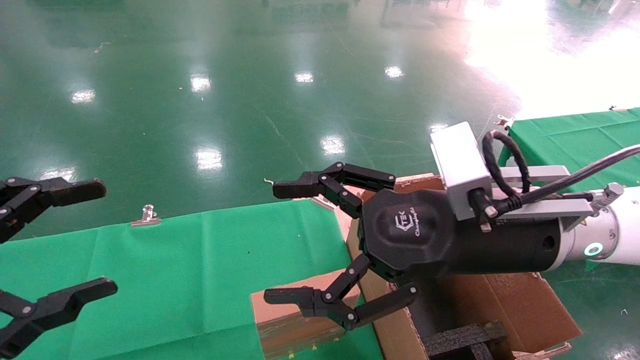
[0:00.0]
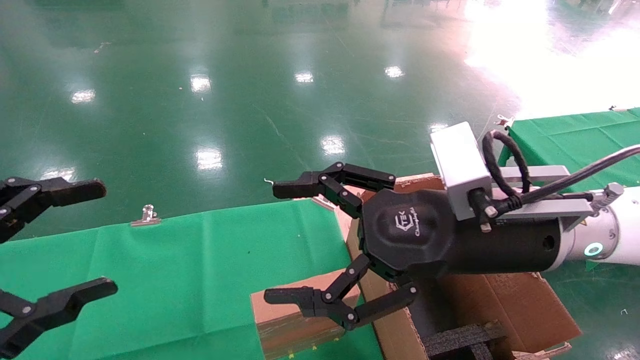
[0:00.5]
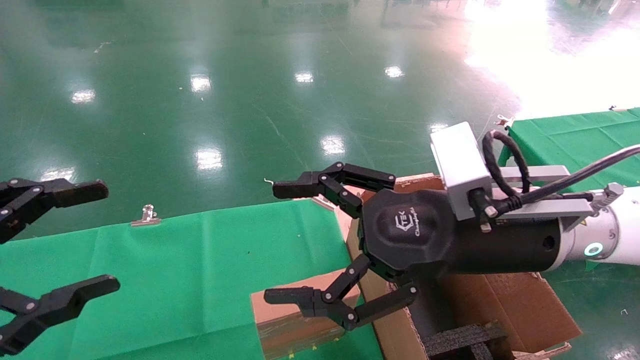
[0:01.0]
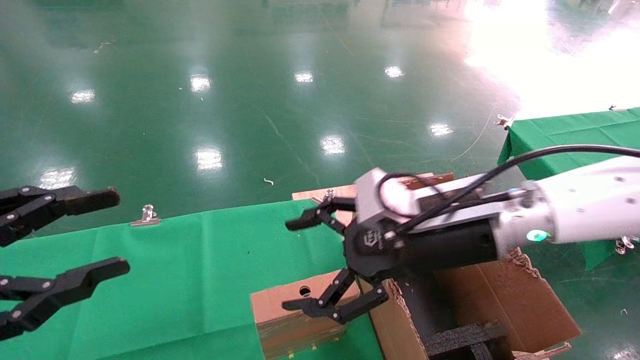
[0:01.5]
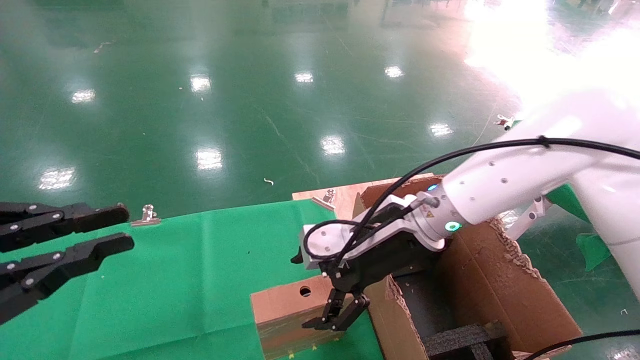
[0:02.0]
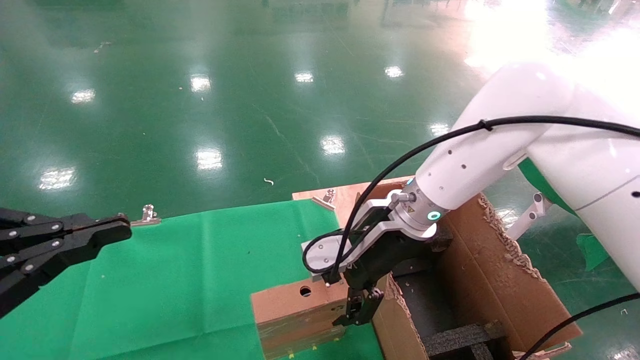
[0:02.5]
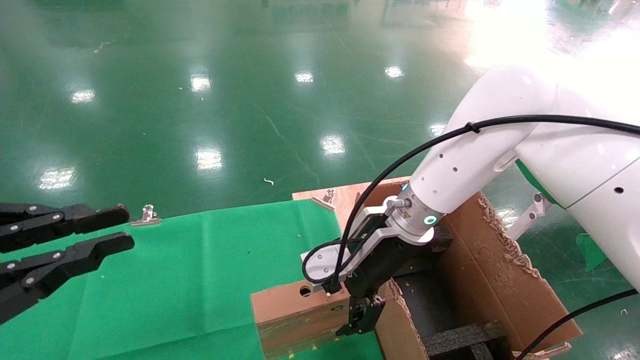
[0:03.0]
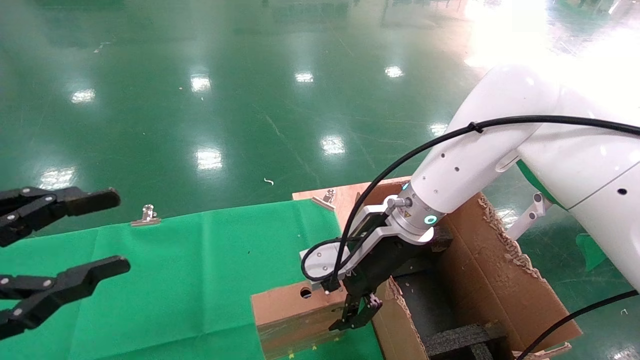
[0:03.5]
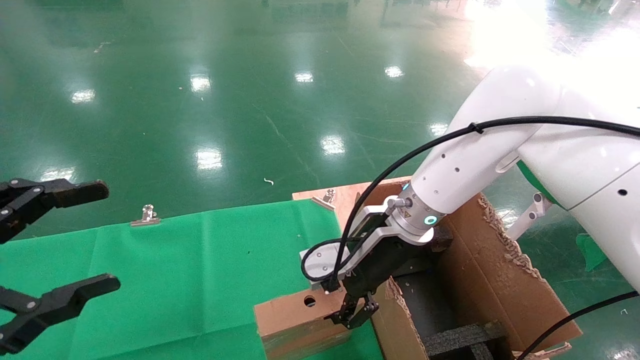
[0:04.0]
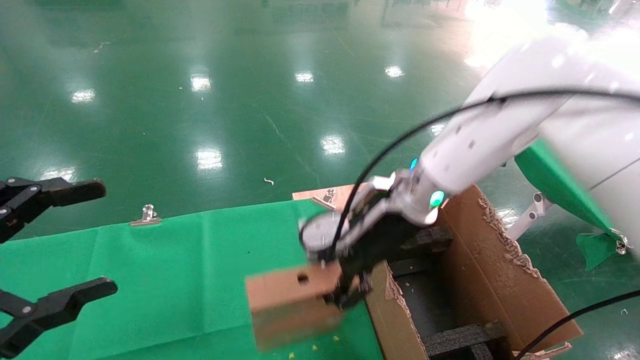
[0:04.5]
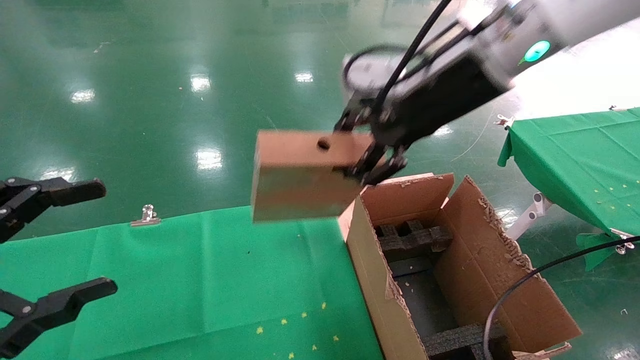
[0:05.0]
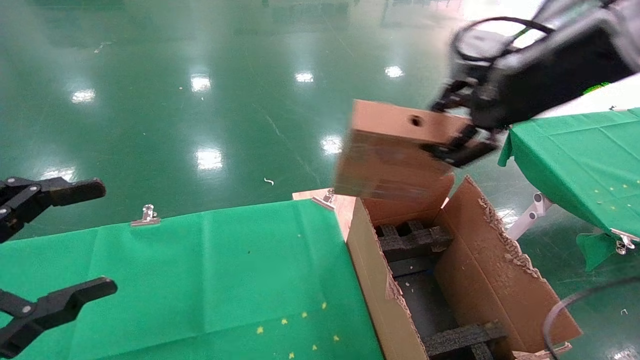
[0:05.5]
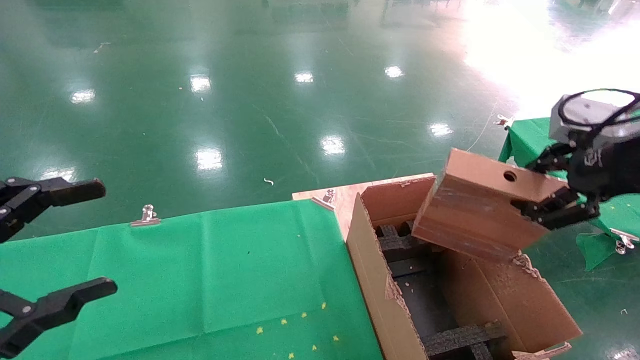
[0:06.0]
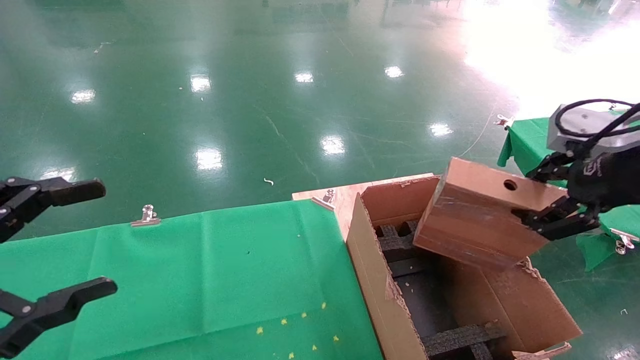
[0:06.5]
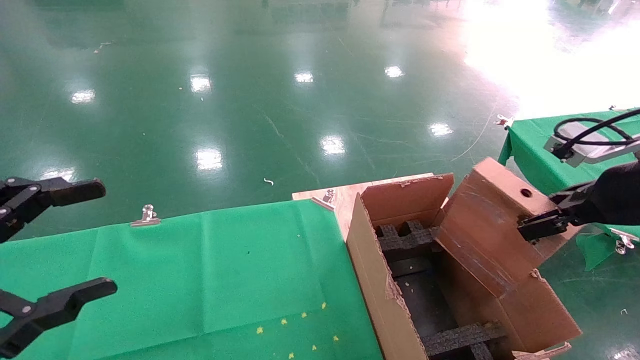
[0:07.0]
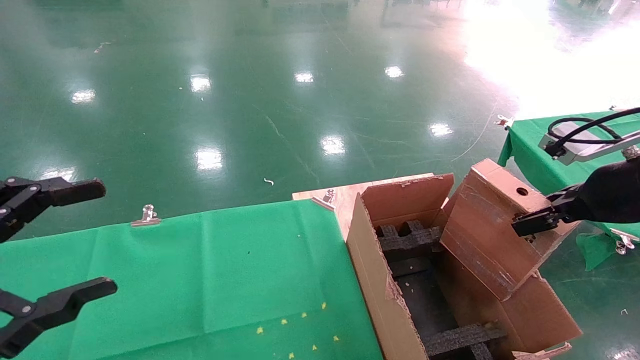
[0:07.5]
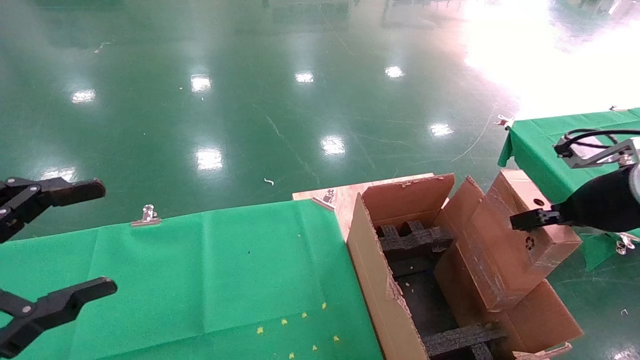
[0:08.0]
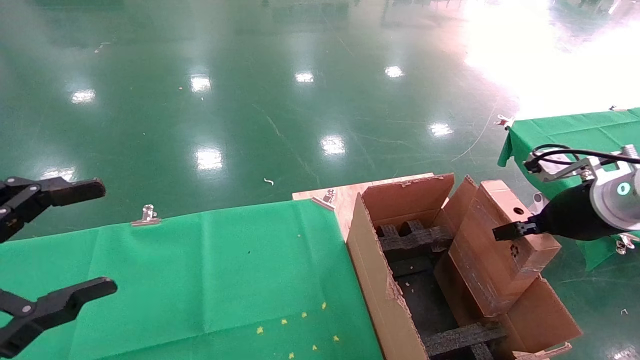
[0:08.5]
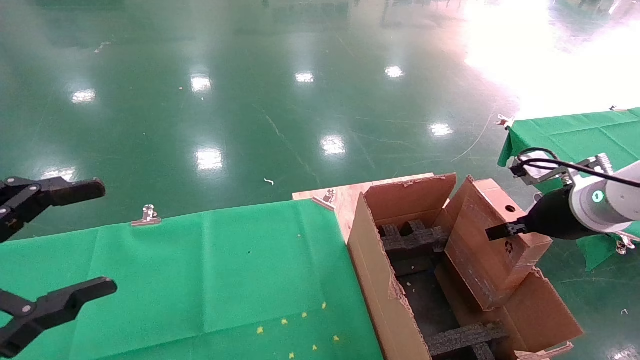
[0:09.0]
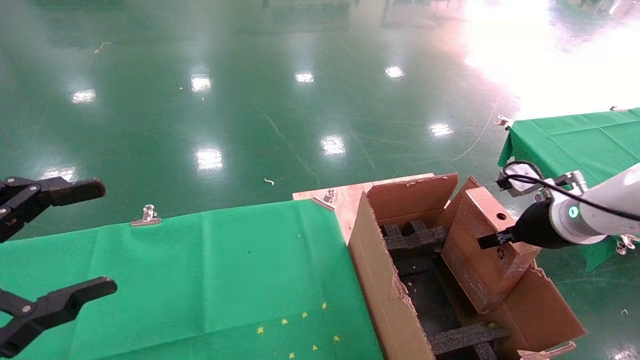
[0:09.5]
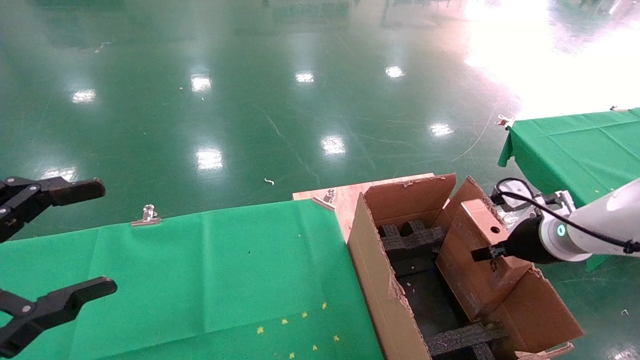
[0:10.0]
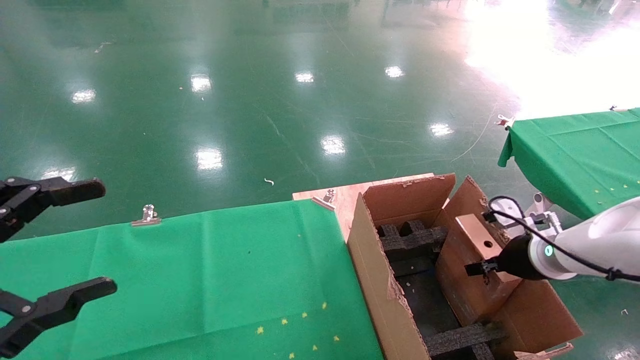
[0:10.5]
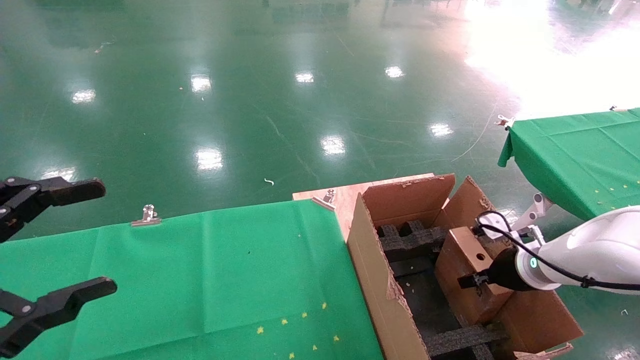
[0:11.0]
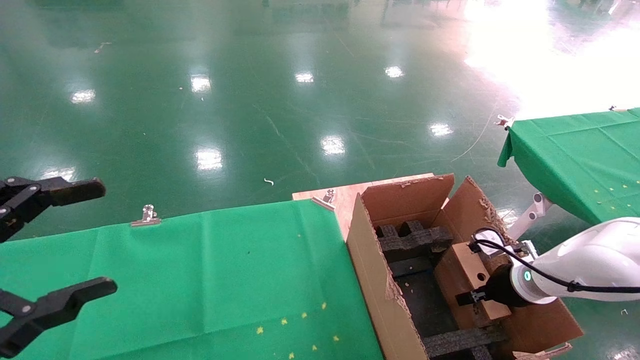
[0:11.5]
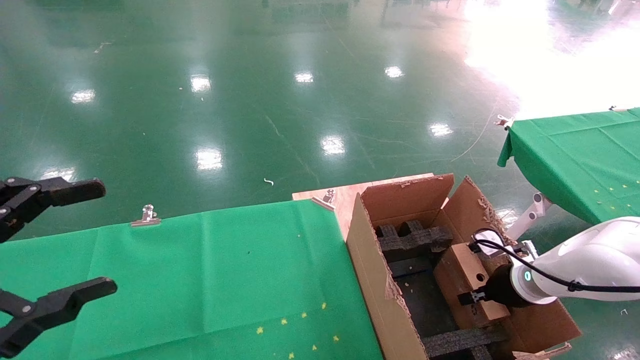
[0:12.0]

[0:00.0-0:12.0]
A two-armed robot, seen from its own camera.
Task of the whole recording: using a robotic arm to pick up a cardboard box and palace it the carton.
Step, 0:01.5 to 0:04.0: Pick up the mouse and the power cord paper box.
0:00.0 to 0:02.0: The left gripper closes. Meanwhile the right gripper moves forward, some 10 cm.
0:02.0 to 0:04.0: The right gripper closes up; the left gripper opens.
0:04.0 to 0:06.0: The right gripper heads to the right, upward and backward, covering roughly 30 cm.
0:06.0 to 0:08.0: The right gripper heads downward and forward, covering some 10 cm.
0:08.0 to 0:10.0: The right gripper heads downward and forward, covering roughly 15 cm.
0:10.0 to 0:12.0: The right gripper heads downward, covering roughly 10 cm.

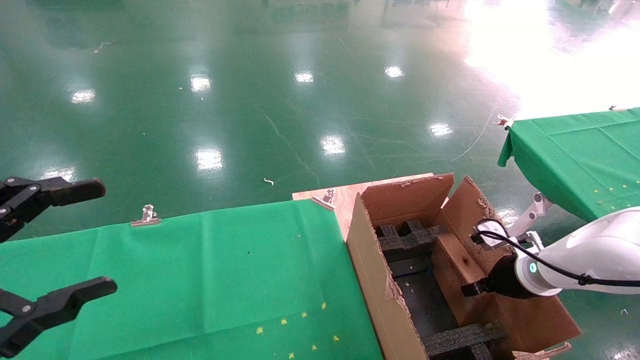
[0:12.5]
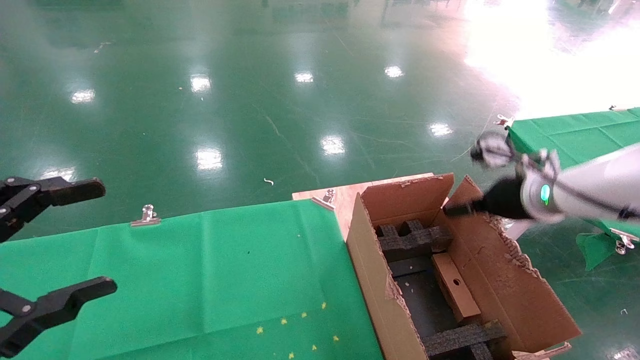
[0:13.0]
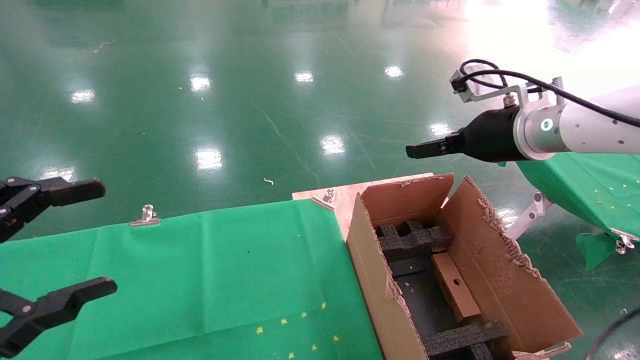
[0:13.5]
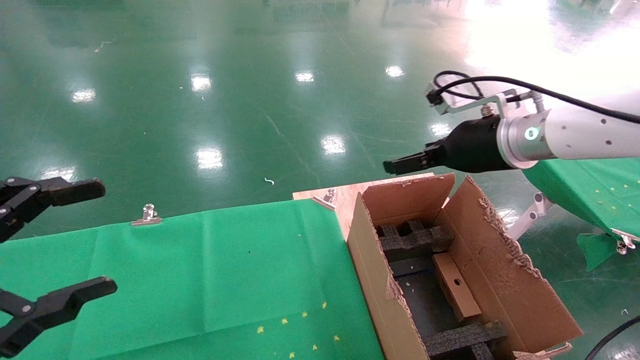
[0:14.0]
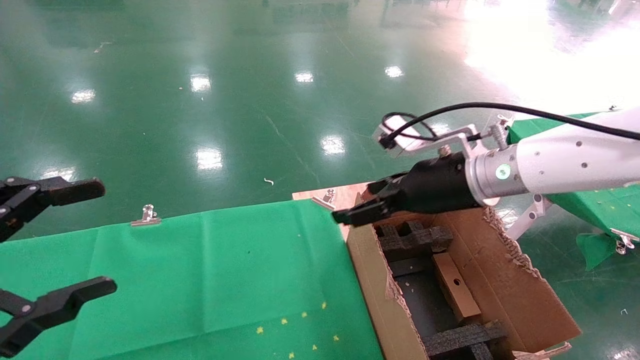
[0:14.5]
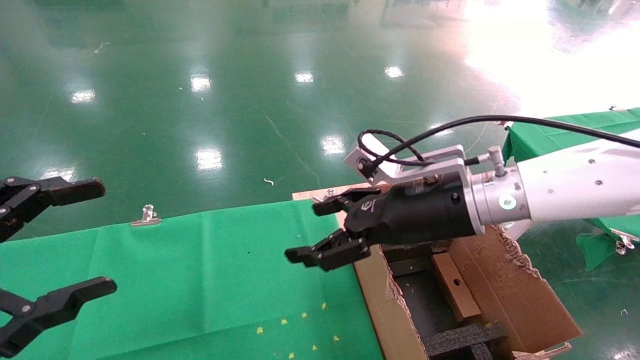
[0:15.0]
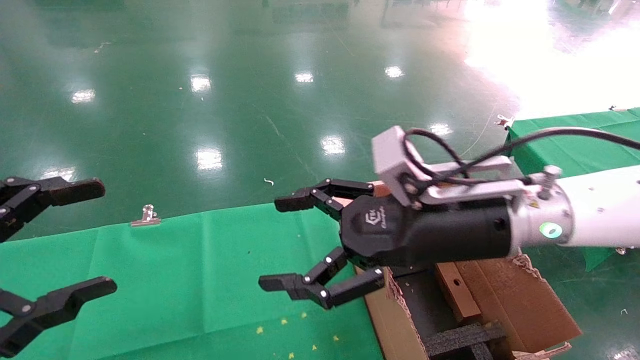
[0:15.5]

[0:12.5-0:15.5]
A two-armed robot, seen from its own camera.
Task of the whole recording: using a robotic arm to pick up a cardboard box and palace it the carton.
0:12.5 to 0:14.0: The right gripper travels upward and to the left by about 20 cm, and opens.
0:14.0 to 0:15.5: The right gripper heads backward and to the left, covering approximately 15 cm.

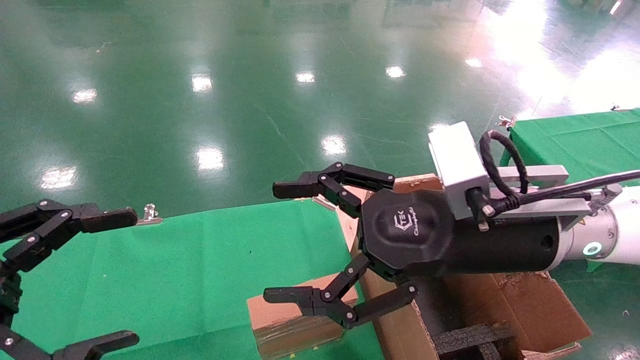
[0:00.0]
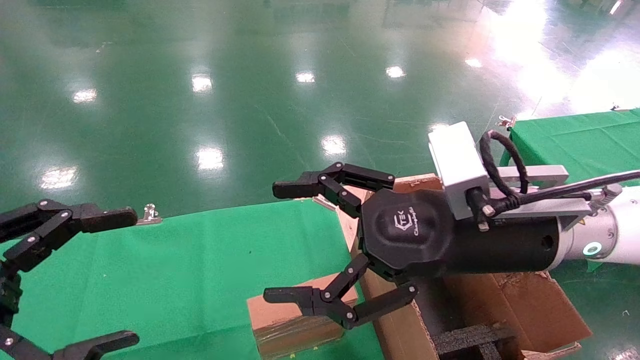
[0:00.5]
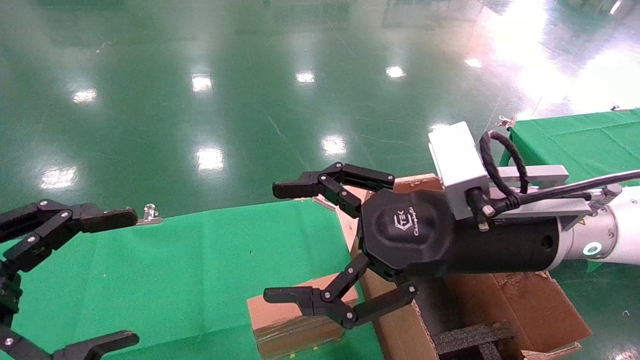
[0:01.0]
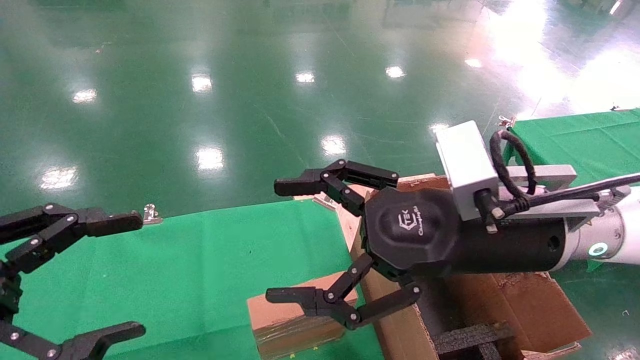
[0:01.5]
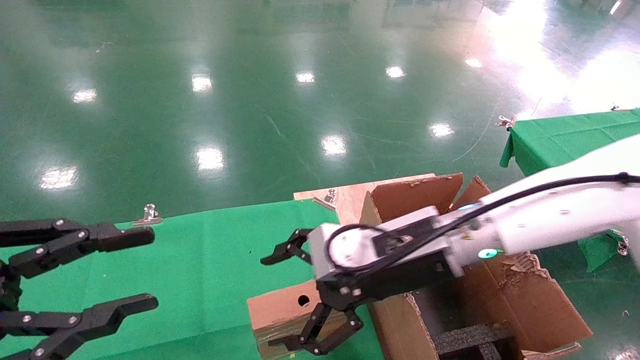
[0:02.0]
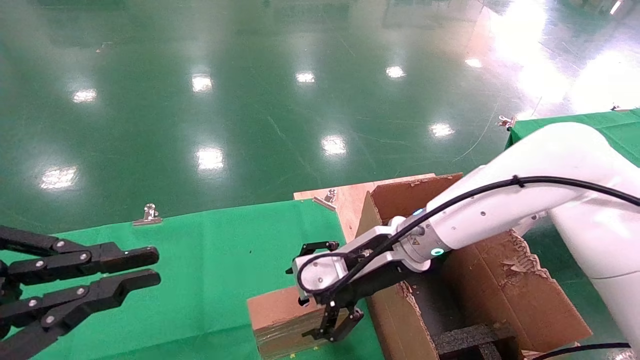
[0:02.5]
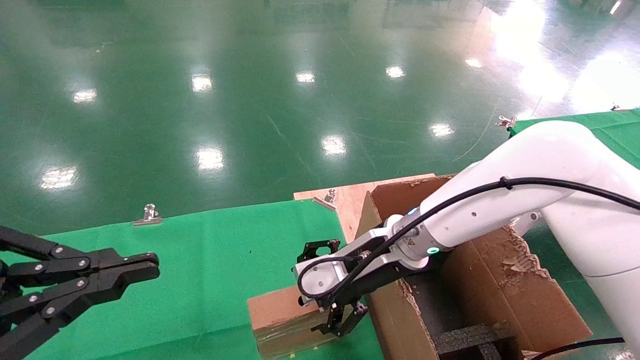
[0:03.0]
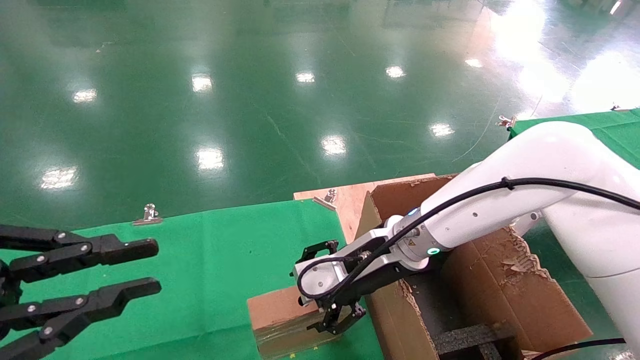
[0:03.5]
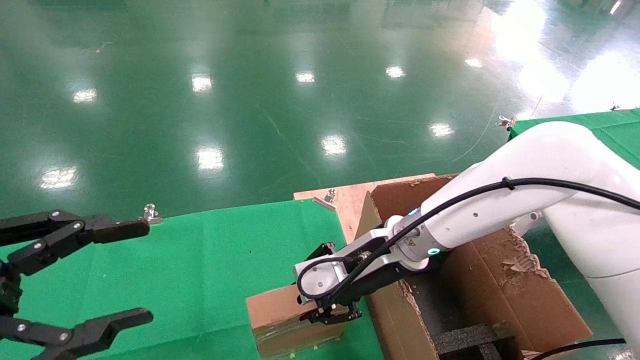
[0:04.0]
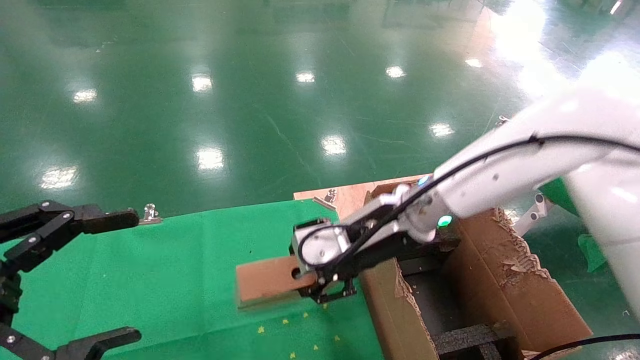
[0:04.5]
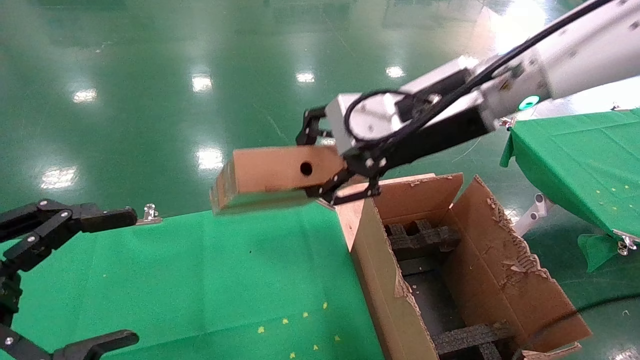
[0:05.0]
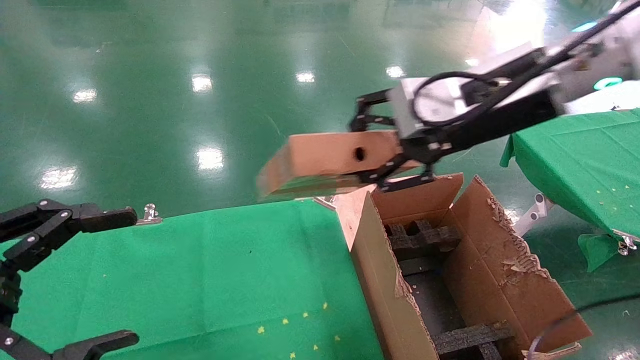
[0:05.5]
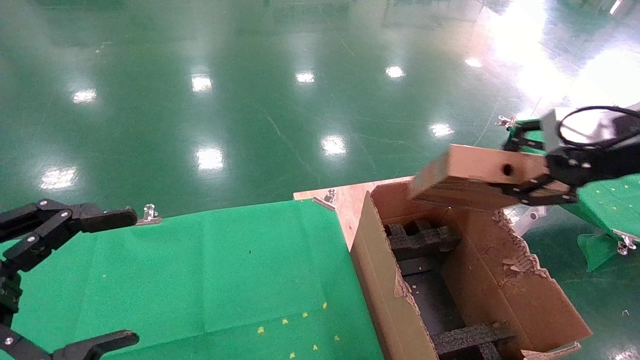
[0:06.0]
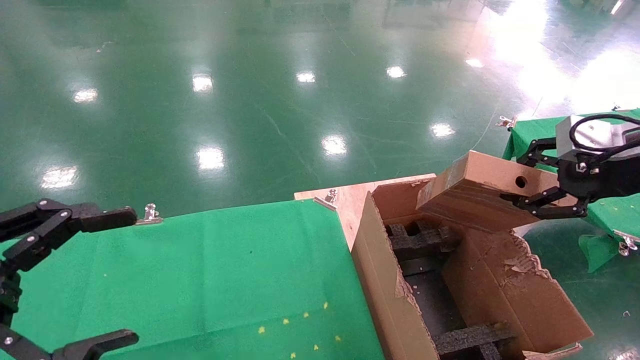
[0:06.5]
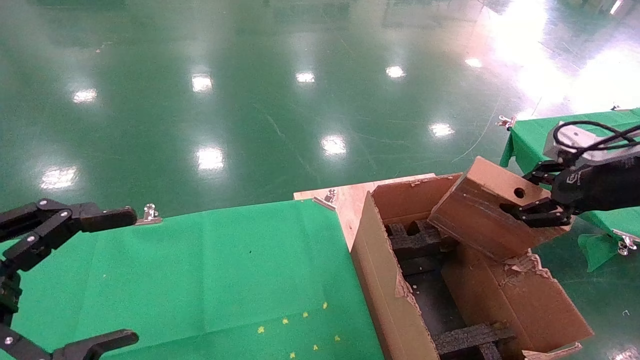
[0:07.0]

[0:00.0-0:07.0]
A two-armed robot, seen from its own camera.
Task of the whole recording: using a robotic arm to pick up a cardboard box and palace it the carton.
Step, 0:02.0 to 0:04.0: Pick up the mouse and the power cord paper box.
0:00.0 to 0:02.0: The right gripper goes roughly 10 cm forward and downward. Meanwhile the left gripper closes.
0:02.0 to 0:03.5: The right gripper moves approximately 5 cm; the left gripper closes.
0:03.5 to 0:05.0: The left gripper opens its fingers; the right gripper travels upward by roughly 15 cm, and closes.
0:05.0 to 0:07.0: The right gripper heads to the right, covering some 30 cm.
